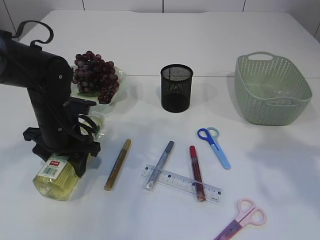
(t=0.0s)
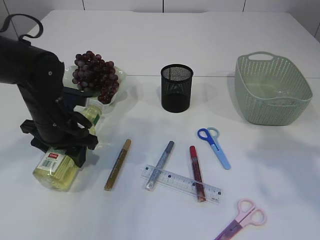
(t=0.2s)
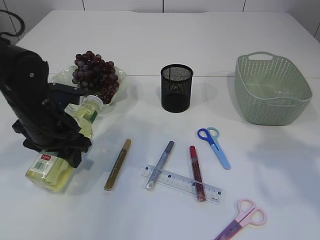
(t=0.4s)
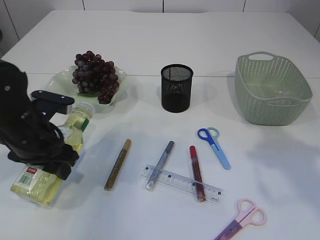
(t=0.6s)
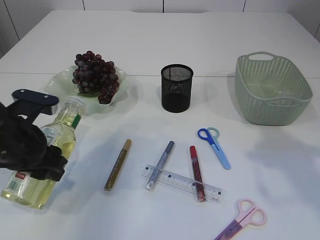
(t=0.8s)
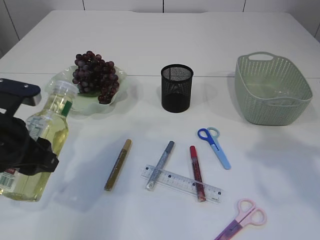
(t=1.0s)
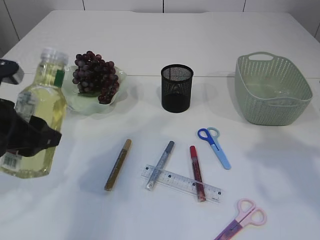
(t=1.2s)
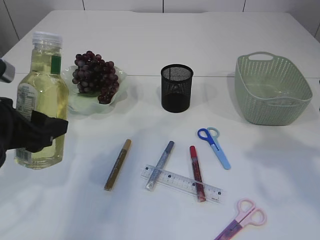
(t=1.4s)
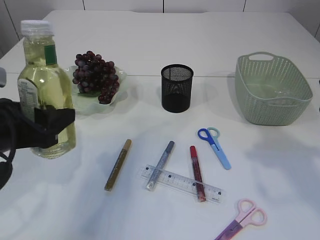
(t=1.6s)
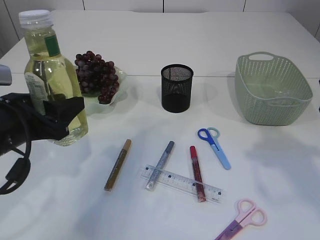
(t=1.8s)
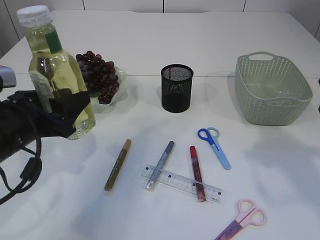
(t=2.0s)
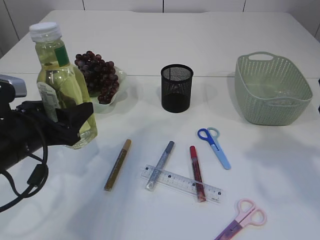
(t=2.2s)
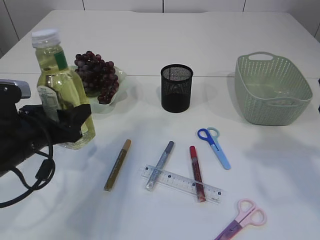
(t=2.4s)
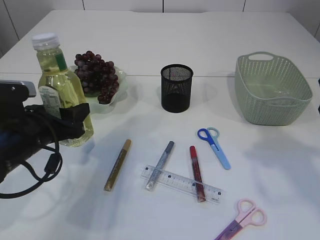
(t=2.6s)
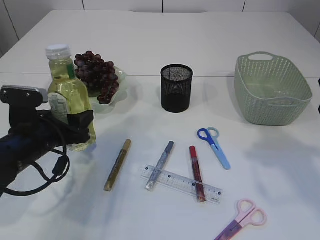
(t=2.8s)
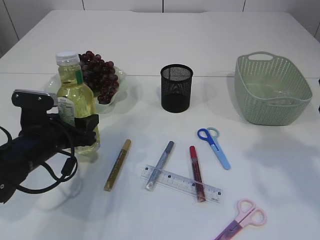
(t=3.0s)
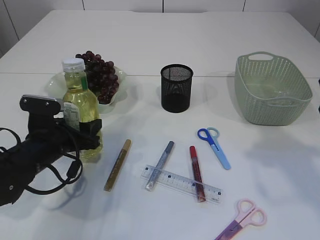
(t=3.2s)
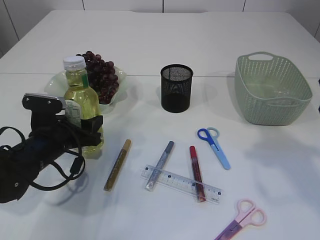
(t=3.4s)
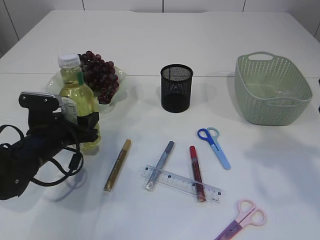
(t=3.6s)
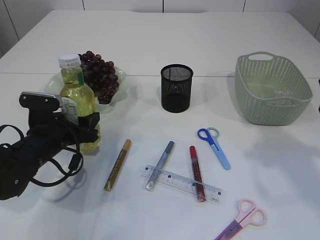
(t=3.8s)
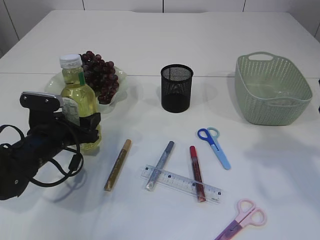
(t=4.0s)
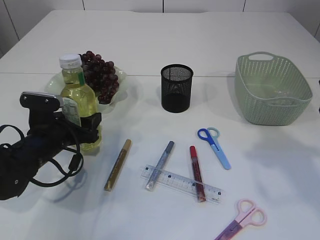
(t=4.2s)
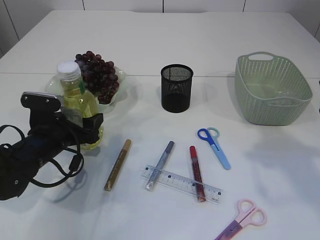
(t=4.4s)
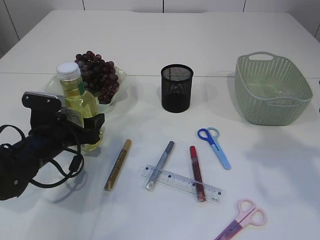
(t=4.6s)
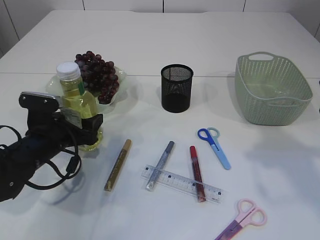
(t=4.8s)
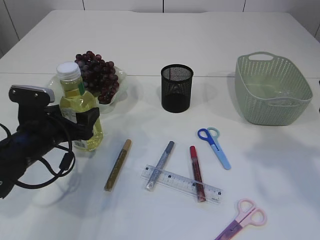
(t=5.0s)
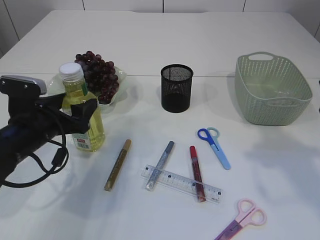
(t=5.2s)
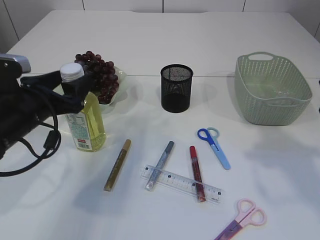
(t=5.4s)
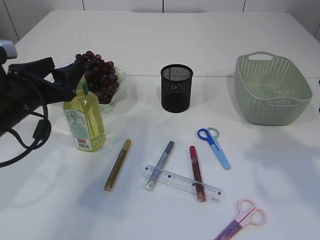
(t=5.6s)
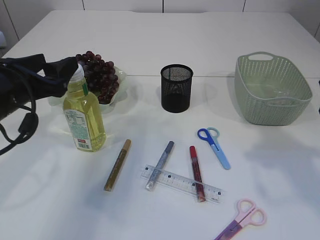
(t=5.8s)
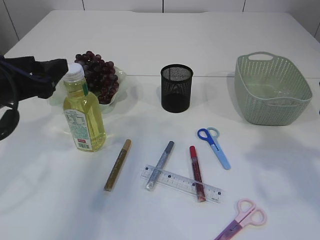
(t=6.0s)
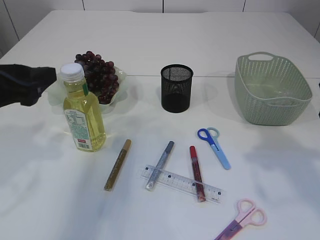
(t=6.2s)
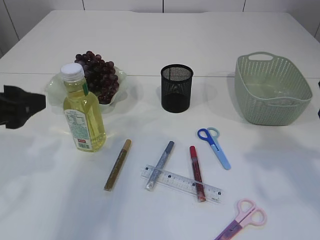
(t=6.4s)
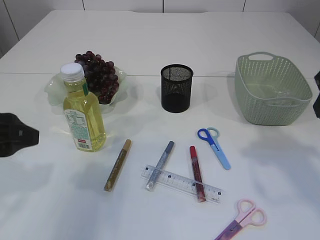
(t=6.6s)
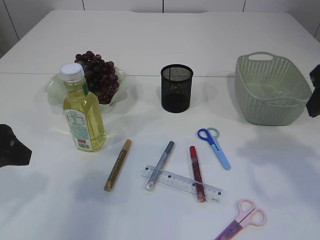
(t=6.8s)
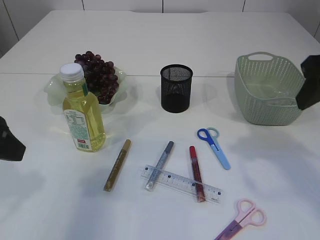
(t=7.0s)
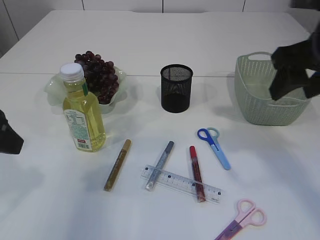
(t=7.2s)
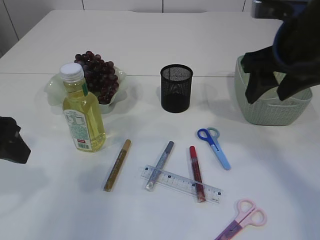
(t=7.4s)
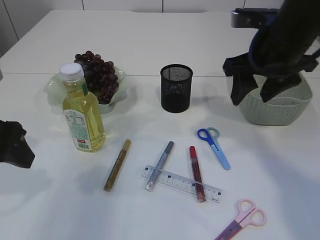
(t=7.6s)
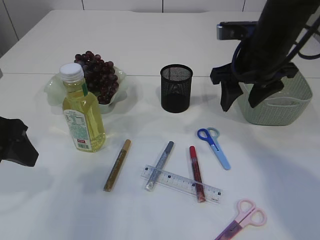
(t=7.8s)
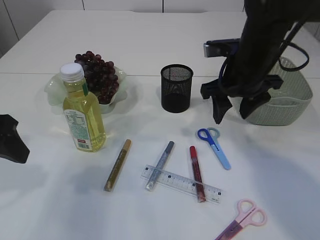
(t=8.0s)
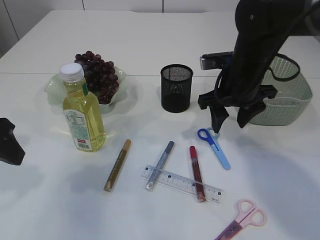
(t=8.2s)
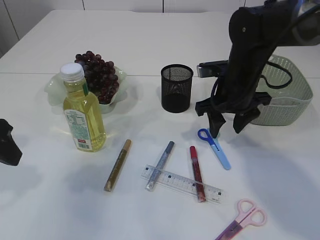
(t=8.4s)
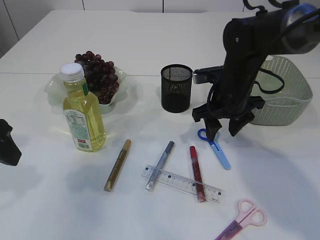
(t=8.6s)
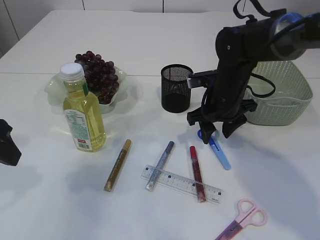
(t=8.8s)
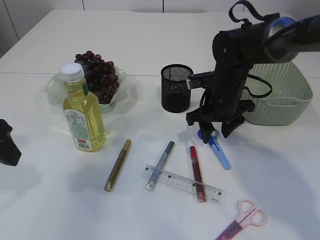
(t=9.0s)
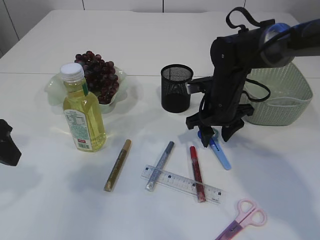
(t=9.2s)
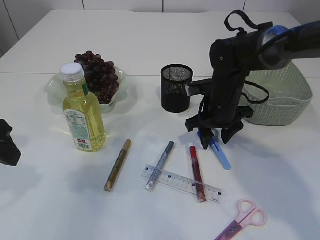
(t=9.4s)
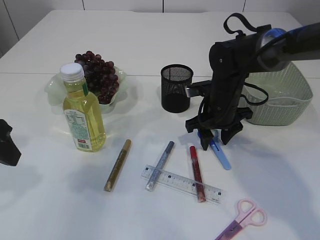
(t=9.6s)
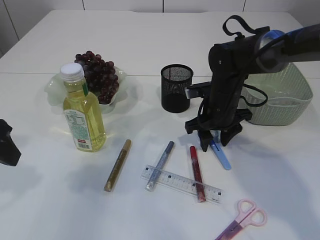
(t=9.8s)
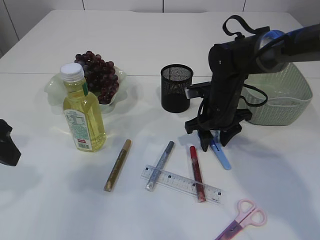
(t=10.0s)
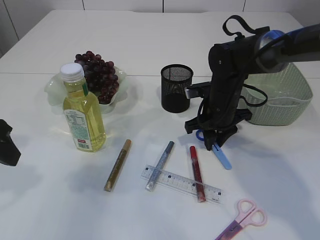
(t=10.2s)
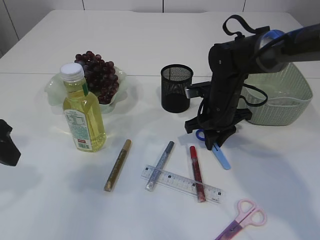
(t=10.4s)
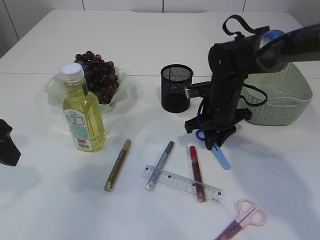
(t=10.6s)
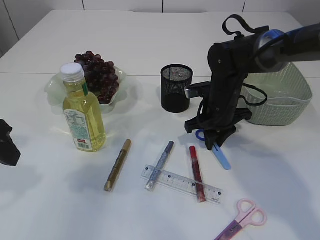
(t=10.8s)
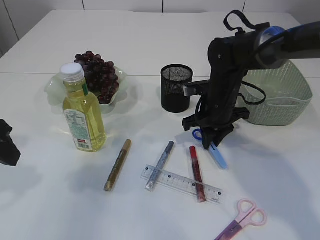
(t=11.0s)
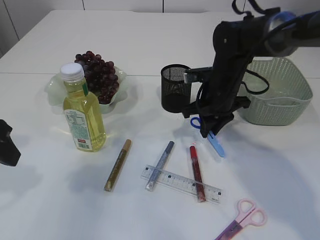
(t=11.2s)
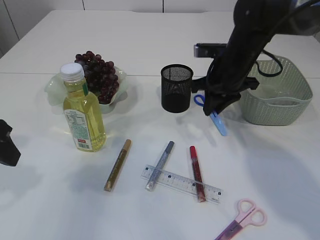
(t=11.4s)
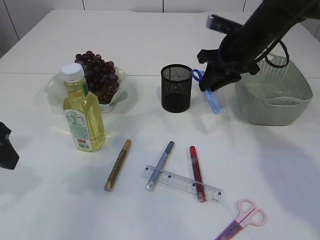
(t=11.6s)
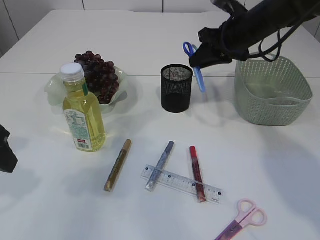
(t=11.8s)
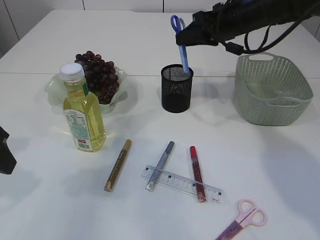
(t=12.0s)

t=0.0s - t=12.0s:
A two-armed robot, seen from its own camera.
Step, t=0.8s - t=6.0s: Place the bottle.
Step, t=6.2s - t=11.2s: pick up the blue scissors.
t=0.0s - t=1.6s: The left gripper shifts some 15 cm backward and upward.
t=1.6s - t=3.0s: The left gripper travels downward and forward by roughly 10 cm.
t=3.0s - t=4.4s: The grippers stay close to where they were, moving slightly.
t=4.4s - t=6.0s: The left gripper travels upward by about 15 cm.
t=6.0s - t=7.6s: The right gripper travels forward and to the left by roughly 15 cm.
t=7.6s - t=9.0s: The right gripper goes about 15 cm downward and forward.
t=9.0s - t=10.4s: The right gripper closes.
t=10.4s - t=12.0s: The right gripper shifts some 15 cm upward.

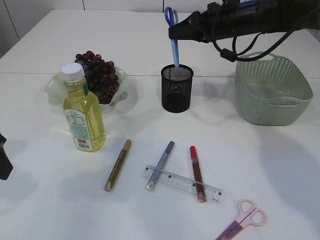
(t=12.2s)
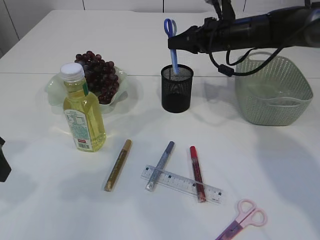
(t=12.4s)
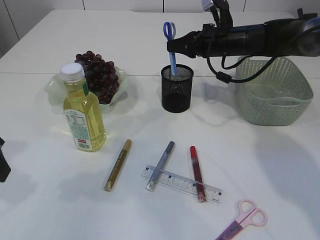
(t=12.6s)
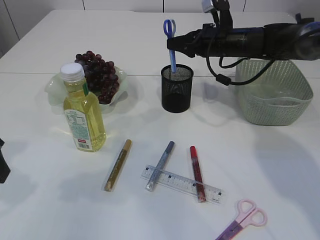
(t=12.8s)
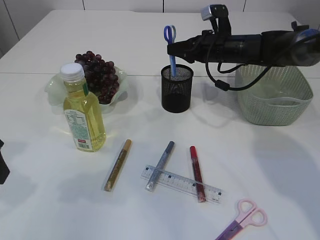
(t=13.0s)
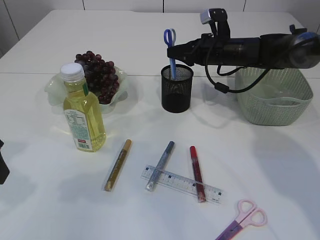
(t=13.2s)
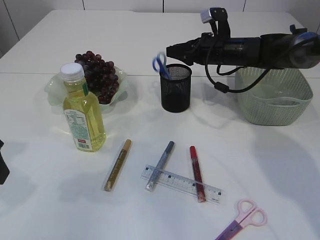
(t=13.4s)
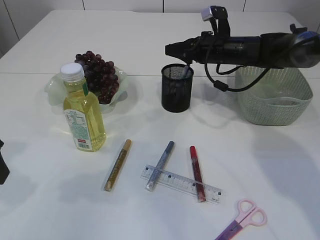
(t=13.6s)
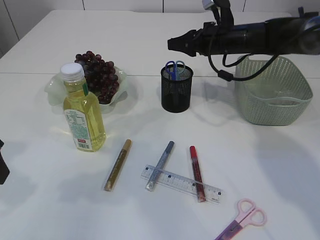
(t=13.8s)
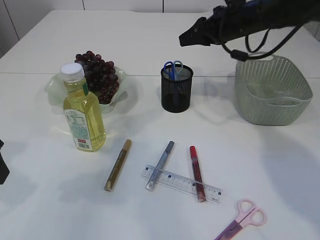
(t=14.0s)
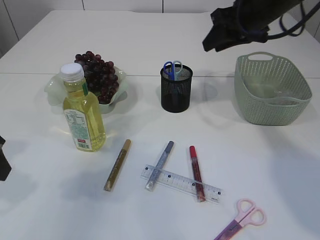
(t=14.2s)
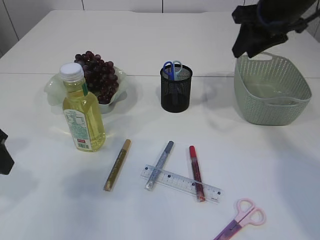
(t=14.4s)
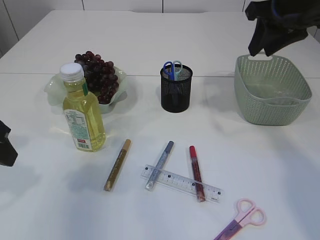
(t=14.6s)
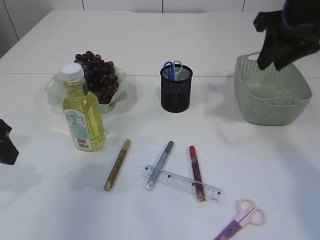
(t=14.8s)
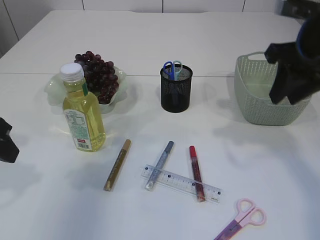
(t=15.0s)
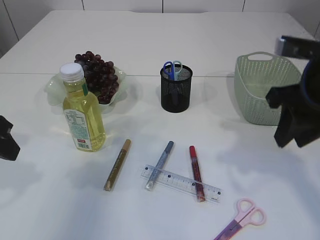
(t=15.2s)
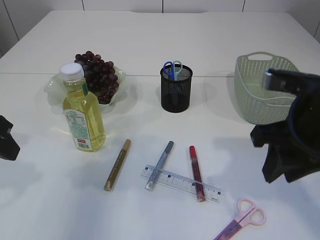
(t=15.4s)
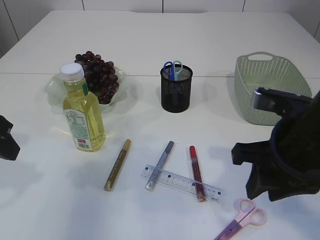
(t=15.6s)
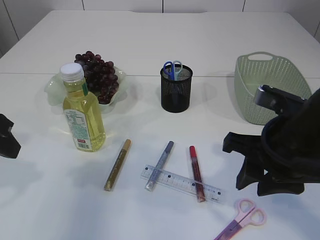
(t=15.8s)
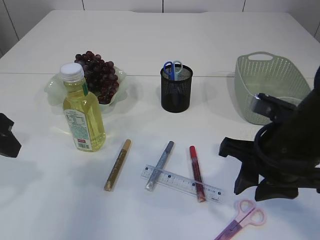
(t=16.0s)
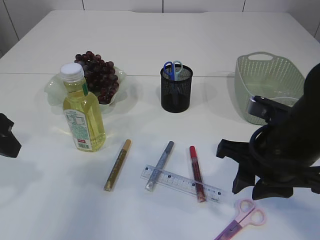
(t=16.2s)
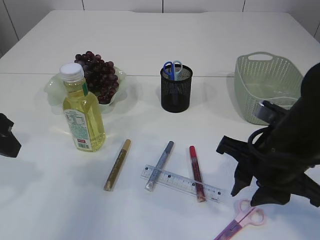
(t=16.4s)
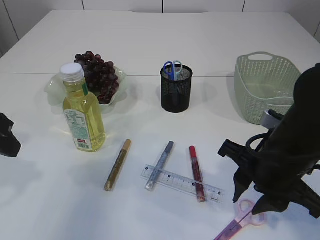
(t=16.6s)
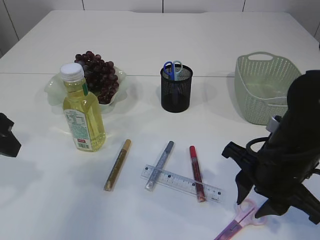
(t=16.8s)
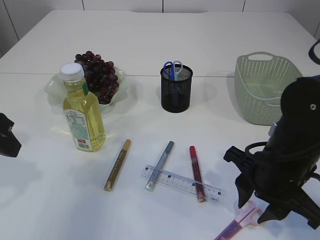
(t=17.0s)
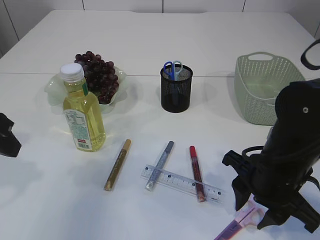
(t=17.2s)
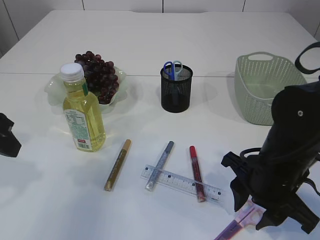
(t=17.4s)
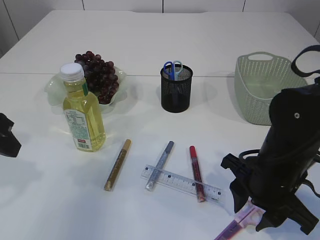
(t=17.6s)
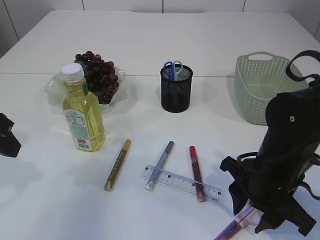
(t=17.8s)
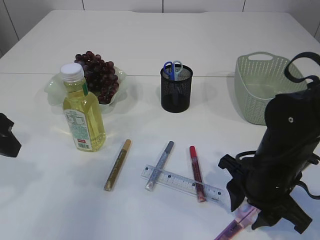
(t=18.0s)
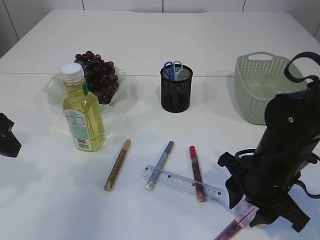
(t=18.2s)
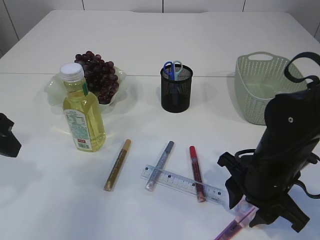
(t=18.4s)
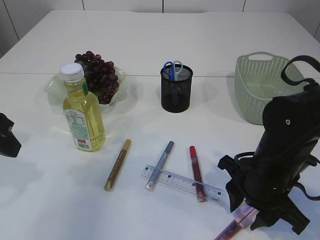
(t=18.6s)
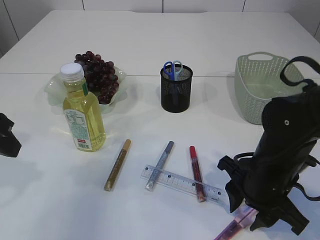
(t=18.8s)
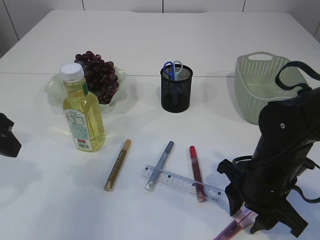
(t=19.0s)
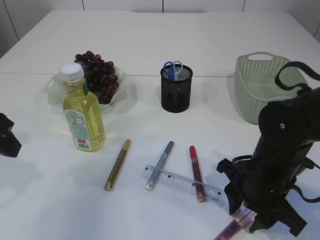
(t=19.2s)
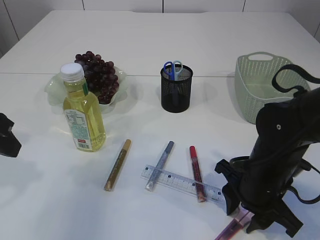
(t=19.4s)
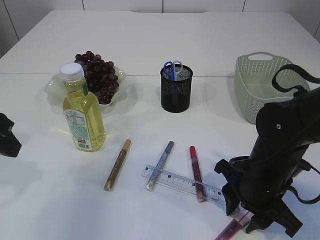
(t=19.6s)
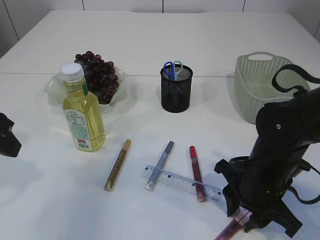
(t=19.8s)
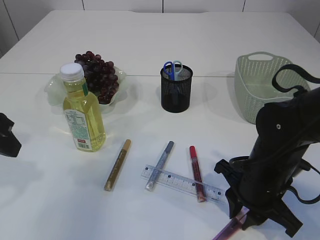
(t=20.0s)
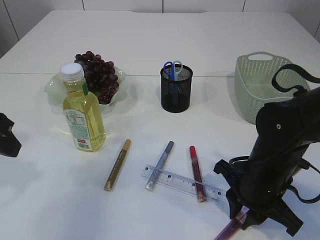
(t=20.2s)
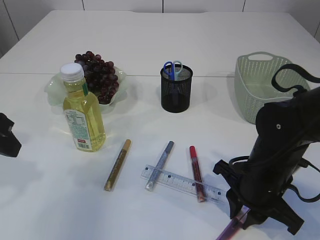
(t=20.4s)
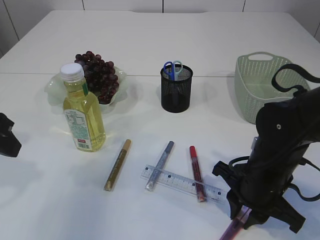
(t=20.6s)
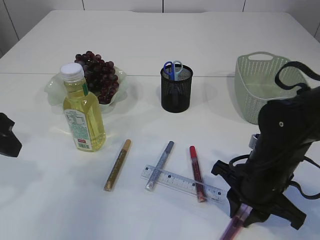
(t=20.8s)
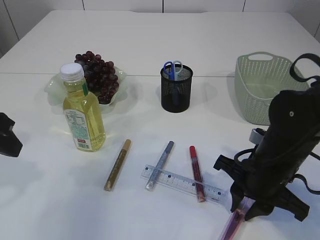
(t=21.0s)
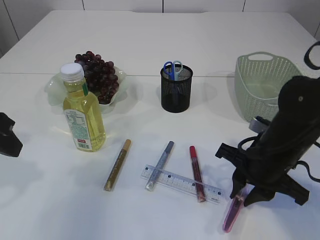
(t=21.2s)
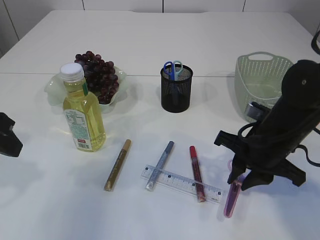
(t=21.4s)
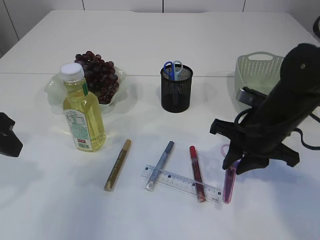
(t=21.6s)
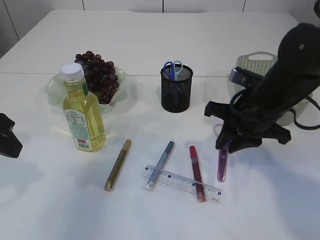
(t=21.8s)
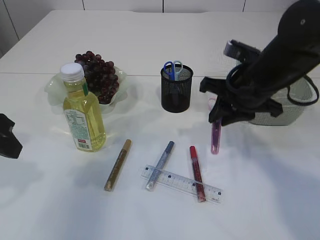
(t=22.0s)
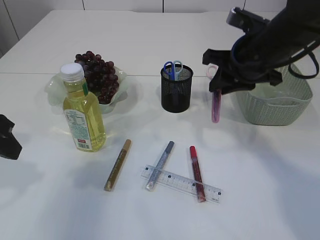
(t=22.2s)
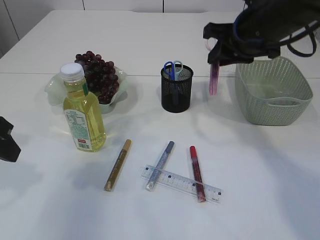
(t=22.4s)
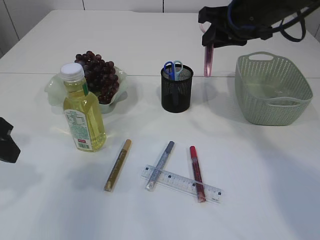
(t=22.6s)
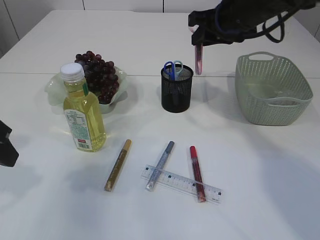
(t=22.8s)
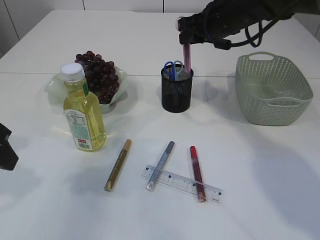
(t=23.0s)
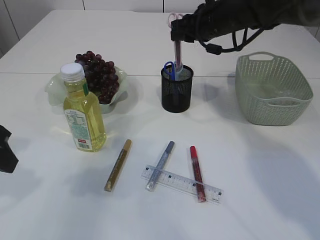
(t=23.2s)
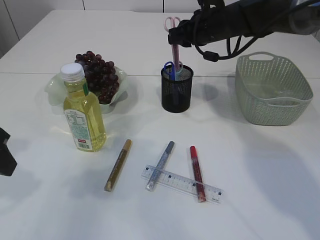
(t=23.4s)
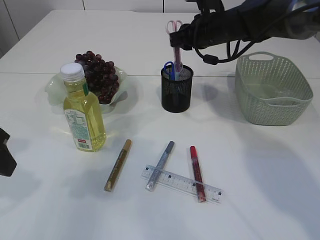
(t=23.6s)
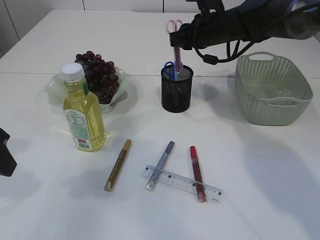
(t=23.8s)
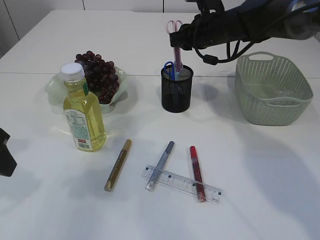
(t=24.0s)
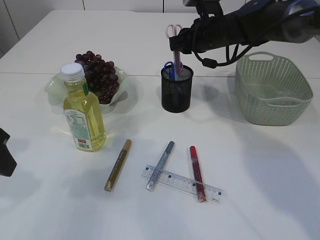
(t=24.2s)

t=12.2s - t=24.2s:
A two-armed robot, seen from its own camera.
Step, t=12.2s - t=13.8s: Place the blue scissors into the pen holder.
Step, t=14.0s - t=21.2s: pick up the pink scissors.
t=12.2s - t=13.8s: The right gripper moves downward, approximately 5 cm.
t=13.8s - t=15.2s: The right gripper goes approximately 25 cm backward.
t=15.2s - t=16.6s: The right gripper travels downward and to the left by about 10 cm.
t=16.6s - t=18.2s: The right gripper moves some 5 cm.
t=18.2s - t=21.2s: The grippers move only a little.
t=21.2s - t=22.6s: The right gripper shifts about 20 cm upward and forward.
t=22.6s - t=24.2s: The right gripper is displaced forward and downward by roughly 10 cm.
